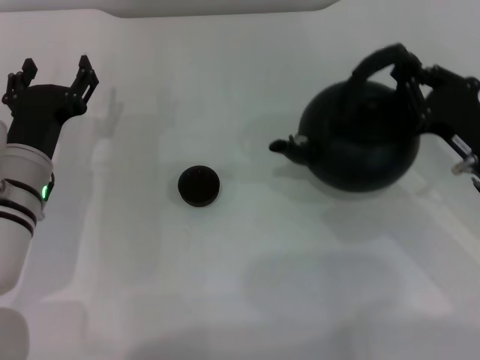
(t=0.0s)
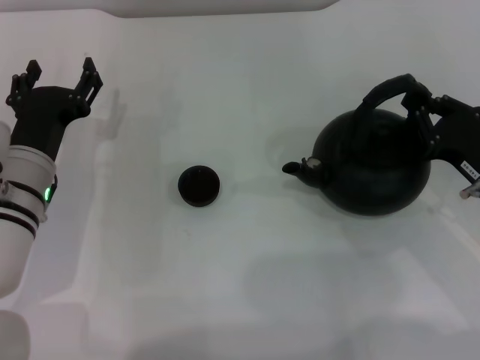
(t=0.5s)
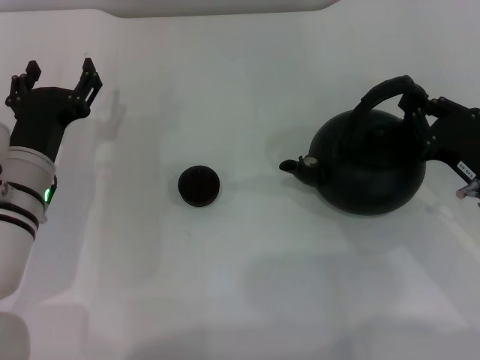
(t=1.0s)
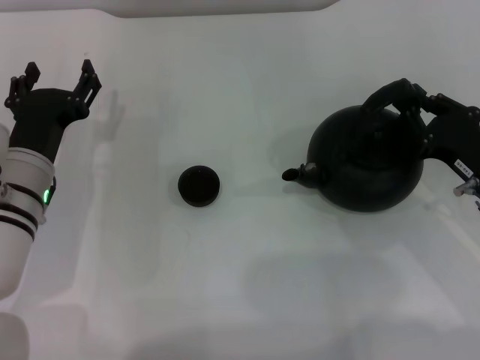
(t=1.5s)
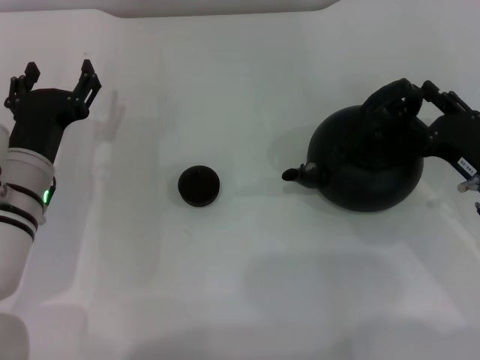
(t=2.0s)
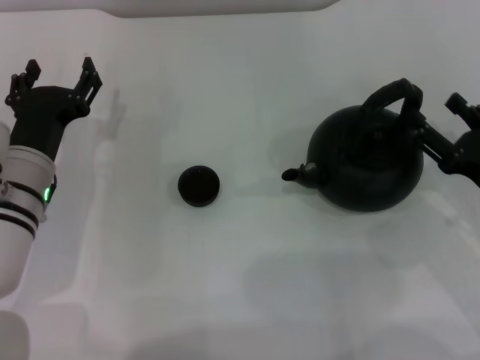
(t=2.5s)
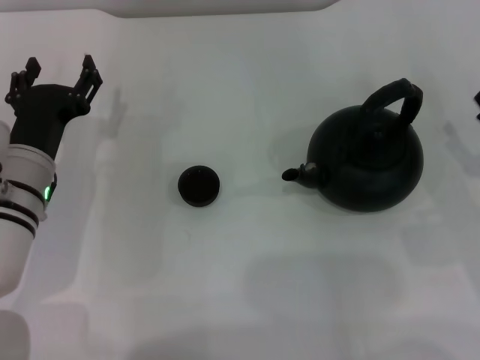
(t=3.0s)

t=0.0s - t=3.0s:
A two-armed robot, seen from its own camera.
Task of the whole recording: Grasp the handle of the teapot with one hand and pour tea into the teacup.
Step, t=0.0s - t=2.5s: Put down the teapot with the right gripper.
t=0.0s - t=1.5s: The grippers make only small movements.
t=1.5s - t=3.0s: The right gripper travels to the right by about 5 cm, and opens.

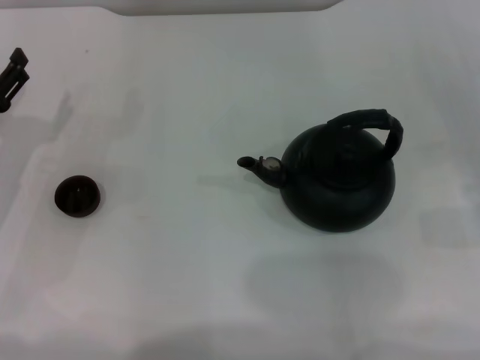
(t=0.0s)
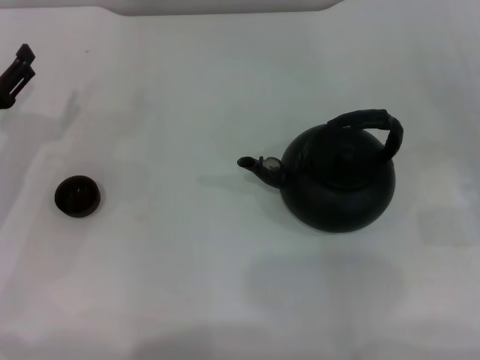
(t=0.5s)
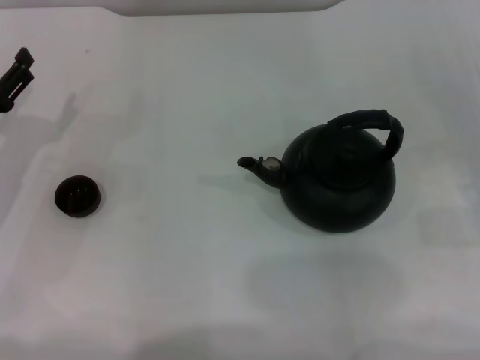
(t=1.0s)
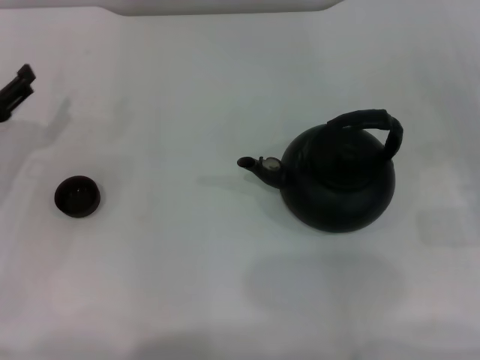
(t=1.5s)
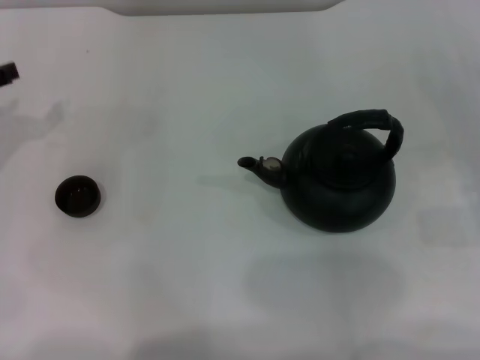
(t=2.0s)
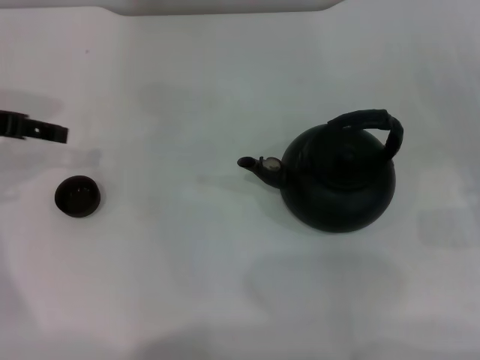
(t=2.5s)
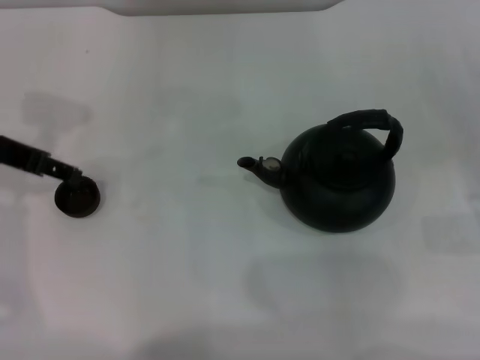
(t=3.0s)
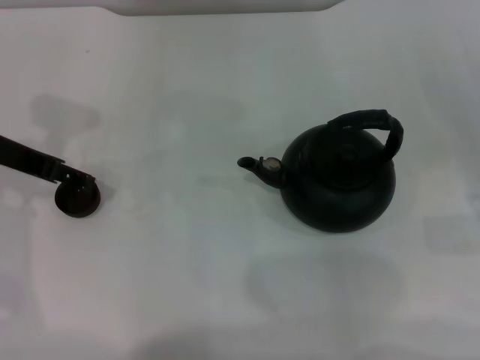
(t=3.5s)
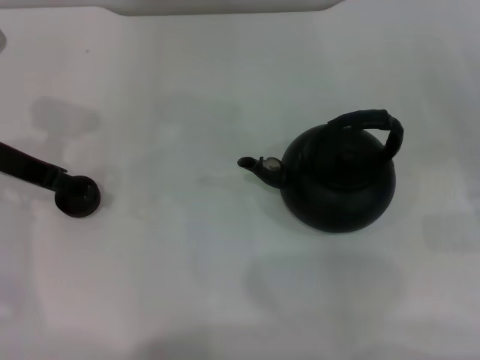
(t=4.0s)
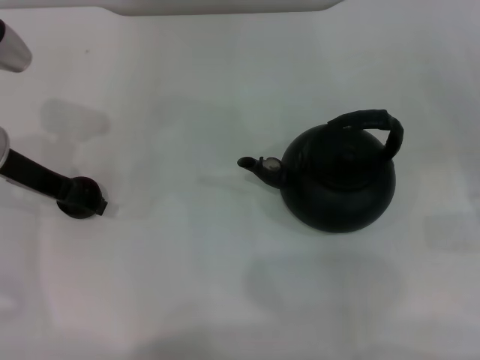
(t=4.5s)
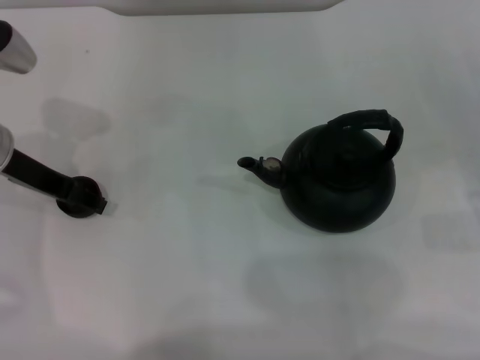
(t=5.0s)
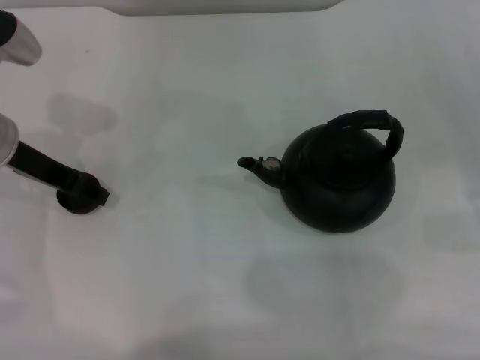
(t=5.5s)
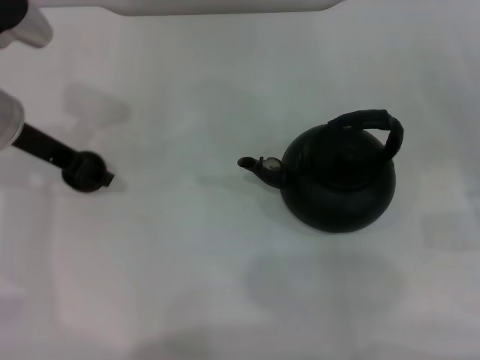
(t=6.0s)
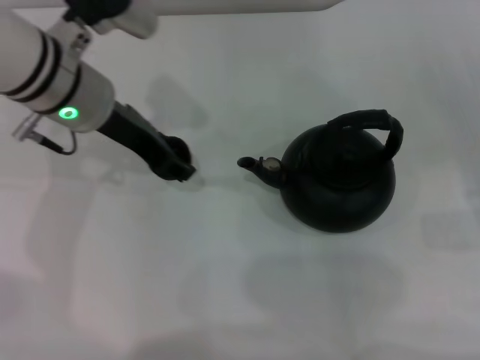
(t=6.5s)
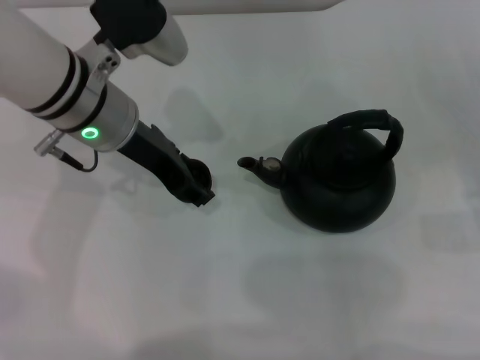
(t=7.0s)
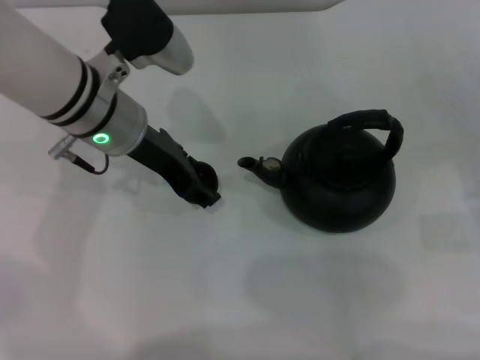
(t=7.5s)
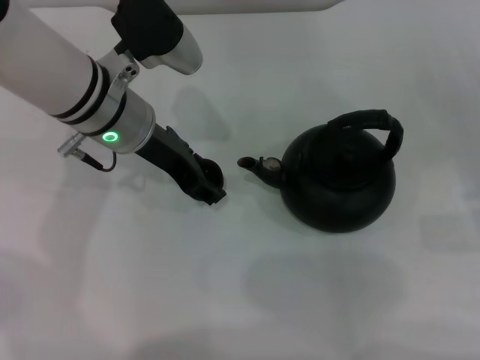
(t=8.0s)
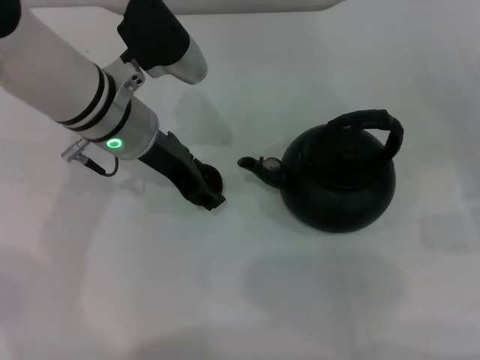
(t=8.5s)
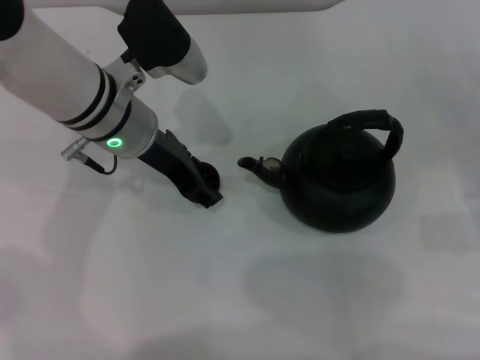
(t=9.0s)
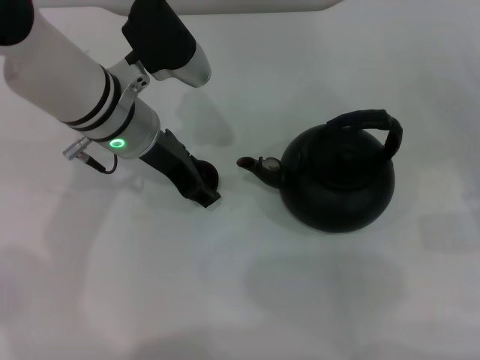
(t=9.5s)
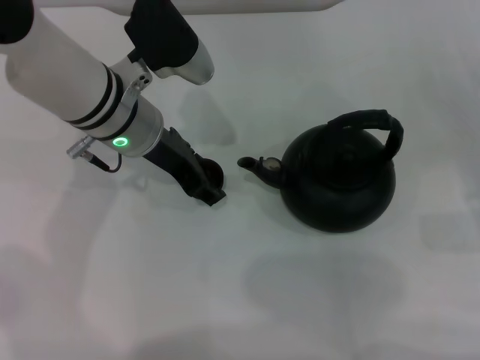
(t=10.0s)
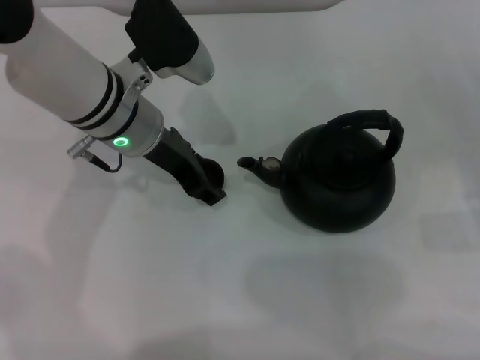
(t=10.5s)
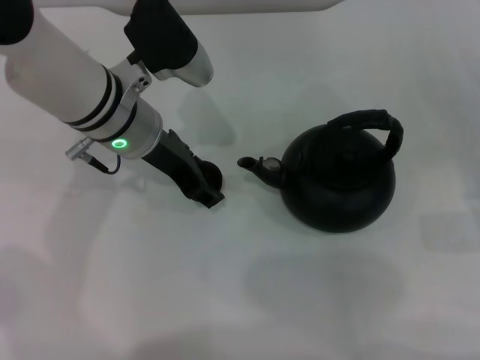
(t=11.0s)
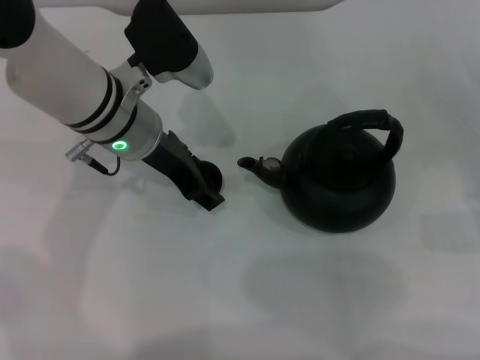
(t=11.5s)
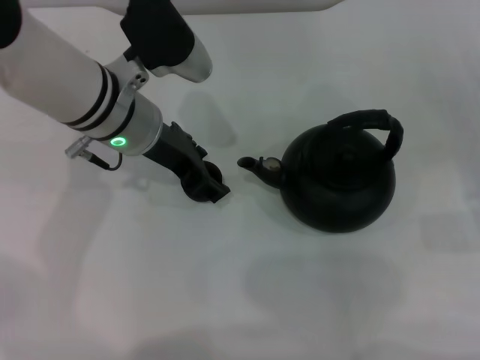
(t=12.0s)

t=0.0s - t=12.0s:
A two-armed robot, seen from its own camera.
Task of the whole recording: Grasp the handle of the teapot with one hand and pour tea into the teacup.
Step, t=0.0s - t=6.0s: Pick up the teacup with the left gripper.
t=0.0s - t=2.0s: The left gripper shifts roughly 10 cm upward.
t=2.0s - t=4.0s: The left gripper goes approximately 10 cm to the right.
t=4.0s - t=6.0s: The left gripper closes its fingers.
t=6.0s - t=8.0s: The left gripper is displaced to the right by some 10 cm.
t=8.0s - t=10.0s: Neither gripper changes place.
t=10.0s - t=12.0s: The left gripper opens its fingers.

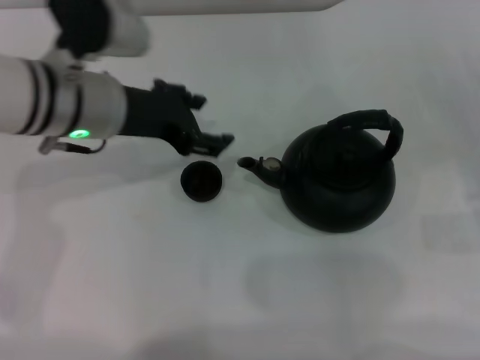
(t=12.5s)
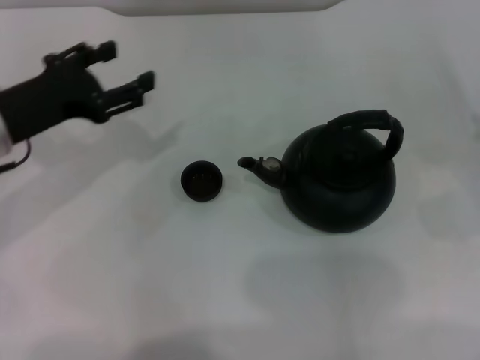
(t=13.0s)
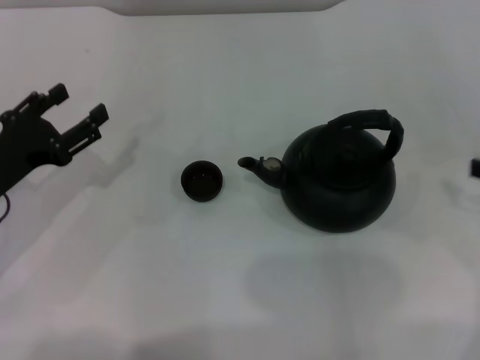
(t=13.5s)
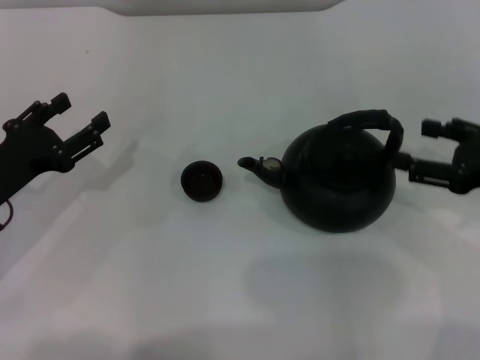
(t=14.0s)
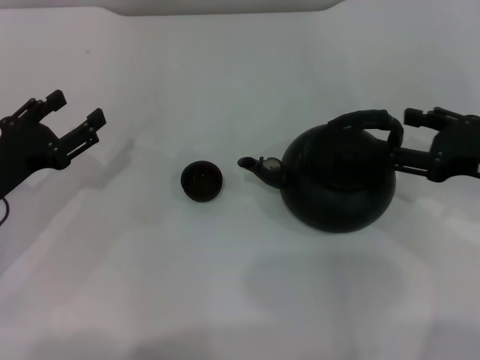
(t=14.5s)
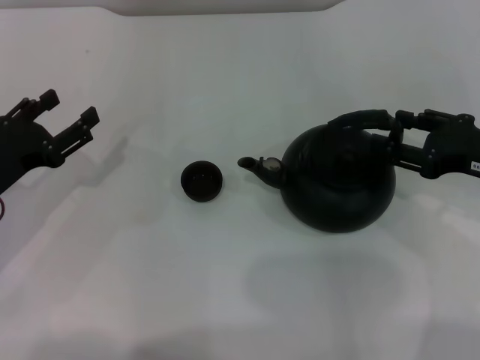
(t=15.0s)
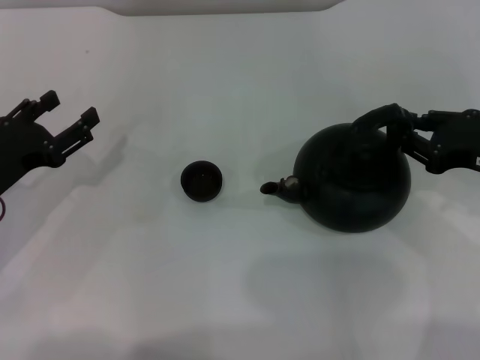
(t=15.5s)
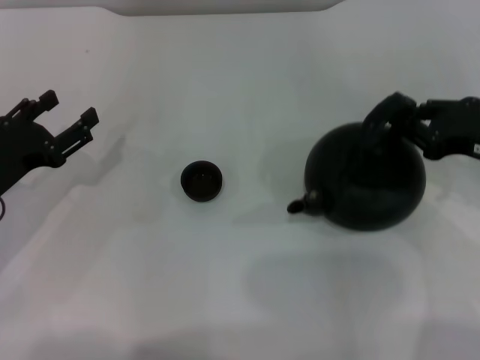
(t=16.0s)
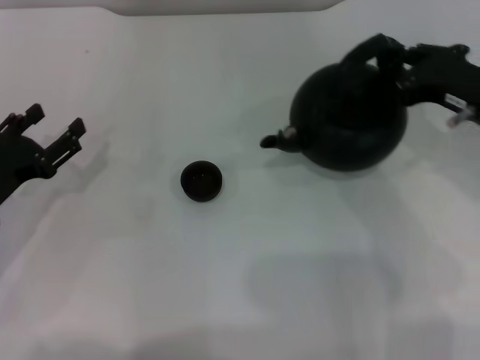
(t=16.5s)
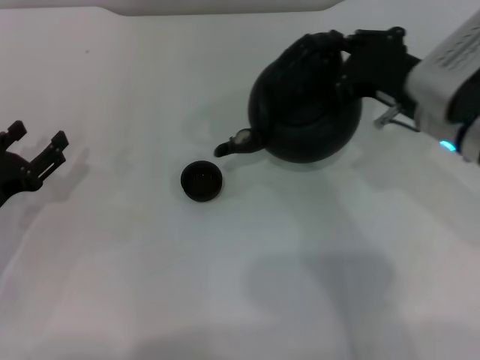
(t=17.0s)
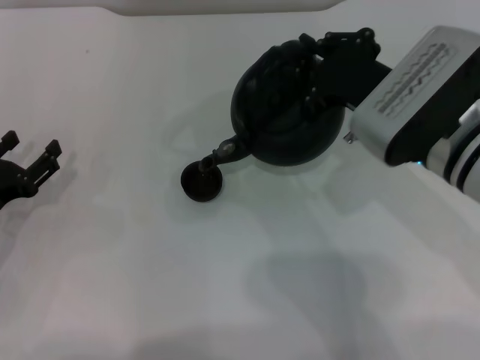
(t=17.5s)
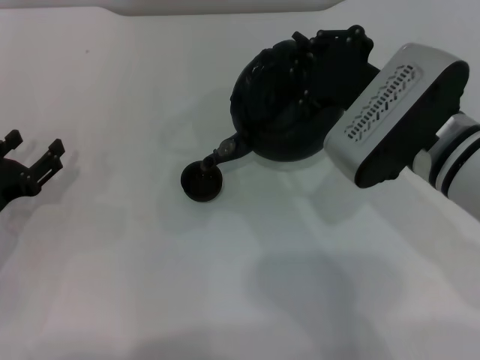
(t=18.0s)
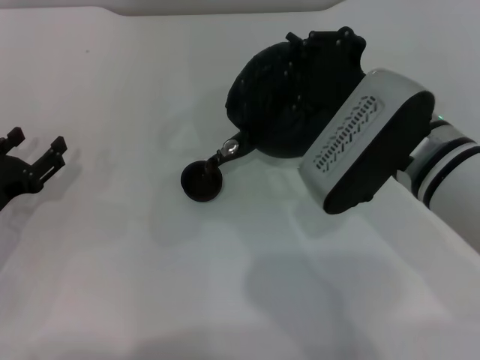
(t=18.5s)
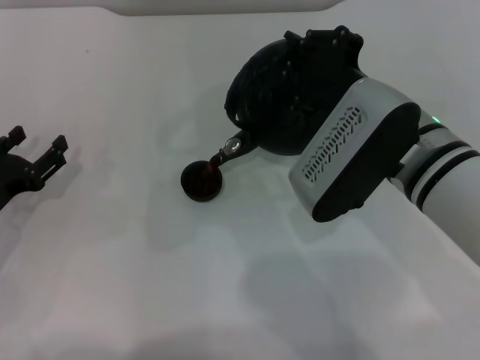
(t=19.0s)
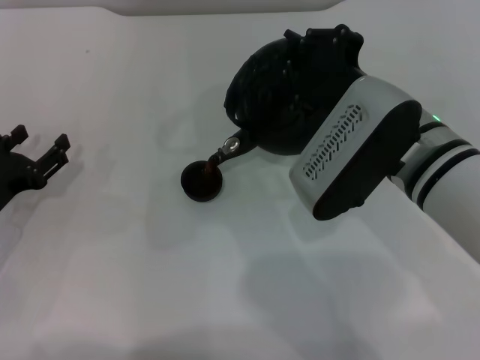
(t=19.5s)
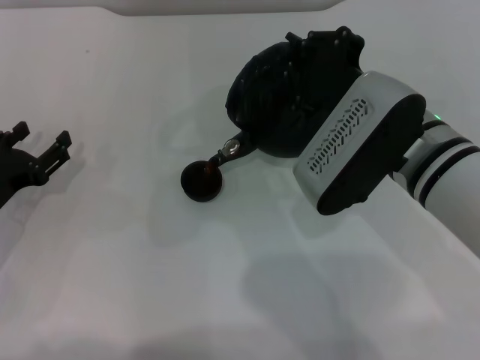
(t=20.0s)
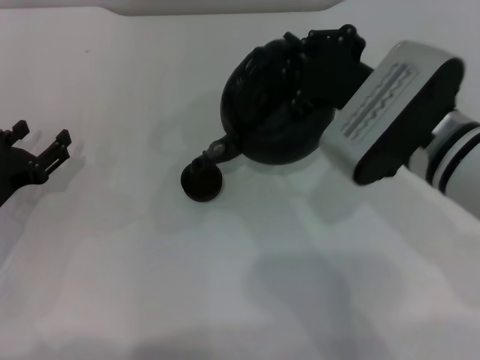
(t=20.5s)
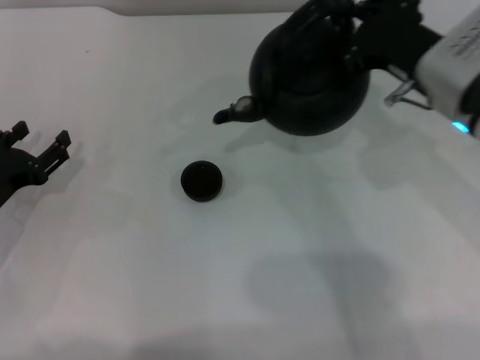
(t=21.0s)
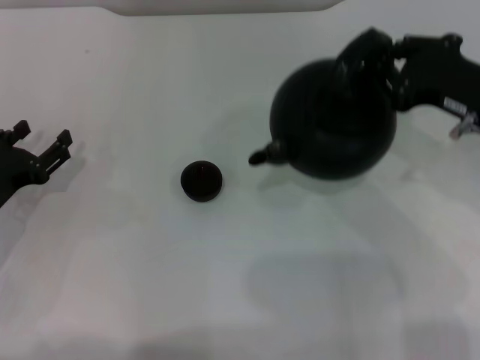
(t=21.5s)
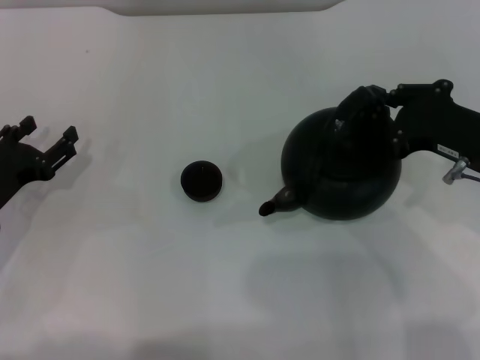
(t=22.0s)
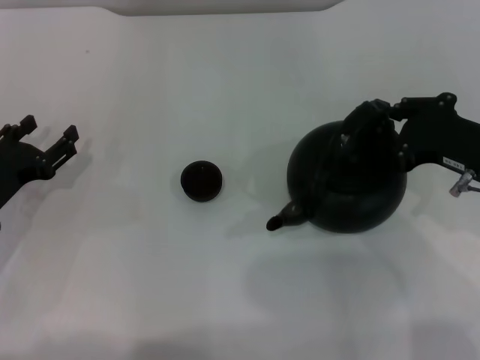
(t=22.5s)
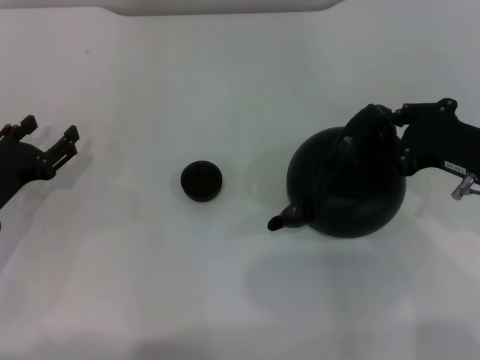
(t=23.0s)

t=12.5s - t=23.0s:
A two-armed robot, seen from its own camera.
Task of the whole recording: Grasp the handle of the teapot with one hand and pour tea into the teacup.
Step, t=12.5s - t=16.5s: Pick up the teapot with the right gripper.
Step, t=17.0s - t=20.5s: Pour tea into the teacup with the right gripper.
t=12.5s - t=14.5s: The right gripper goes about 10 cm to the left and upward. Meanwhile the left gripper goes approximately 20 cm to the left, downward and backward.
t=14.5s - t=16.5s: The right gripper shifts by about 5 cm, and closes its fingers.
t=16.5s - t=19.0s: The right gripper is displaced to the left by about 15 cm.
t=19.0s - t=21.0s: The right gripper moves to the right, roughly 5 cm.
t=21.0s - t=23.0s: The right gripper moves to the right and downward, about 10 cm.
